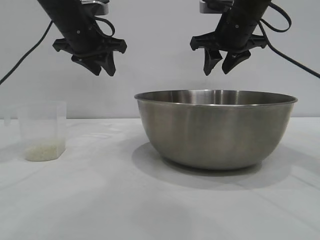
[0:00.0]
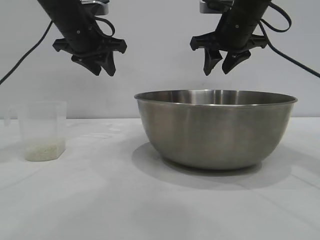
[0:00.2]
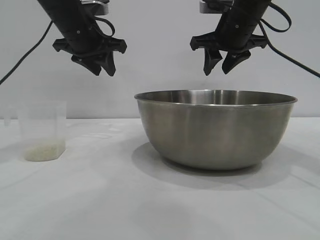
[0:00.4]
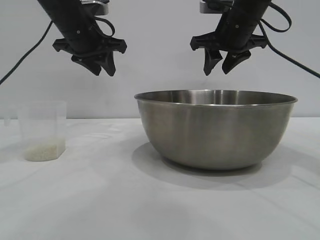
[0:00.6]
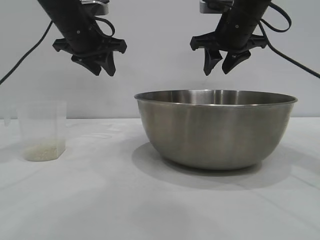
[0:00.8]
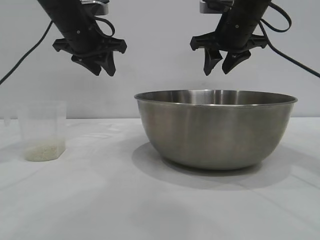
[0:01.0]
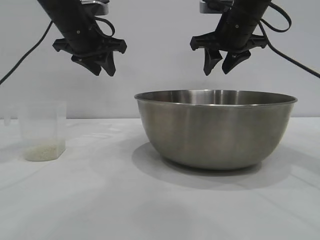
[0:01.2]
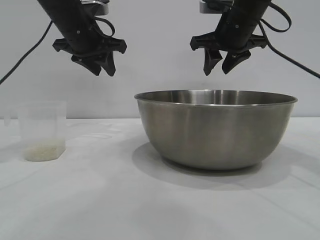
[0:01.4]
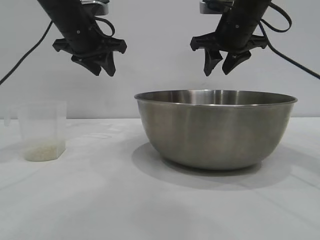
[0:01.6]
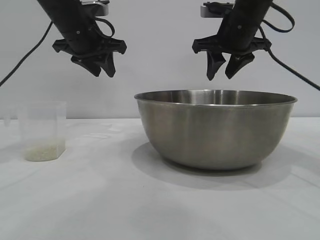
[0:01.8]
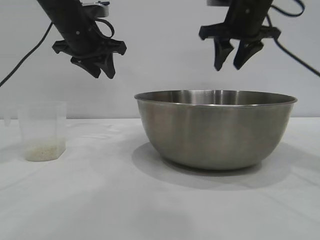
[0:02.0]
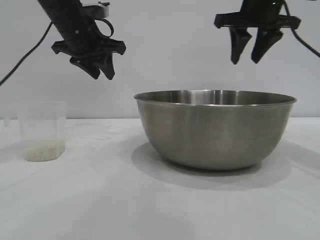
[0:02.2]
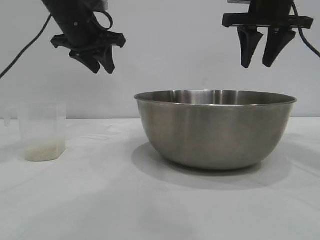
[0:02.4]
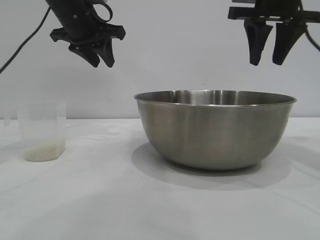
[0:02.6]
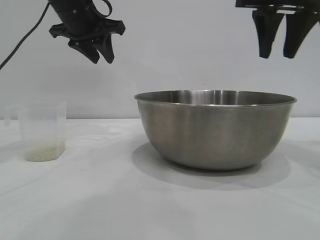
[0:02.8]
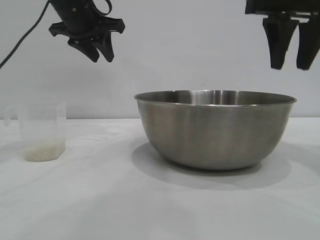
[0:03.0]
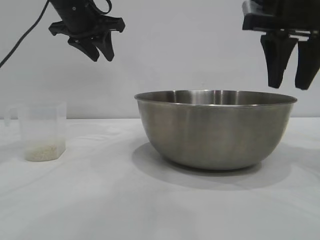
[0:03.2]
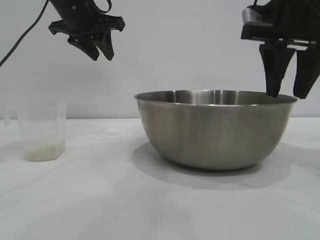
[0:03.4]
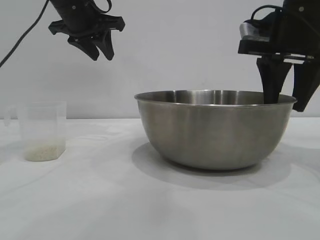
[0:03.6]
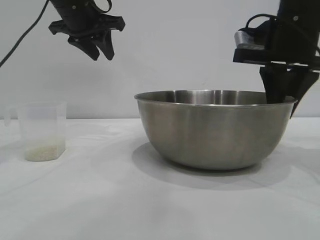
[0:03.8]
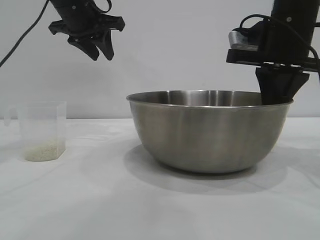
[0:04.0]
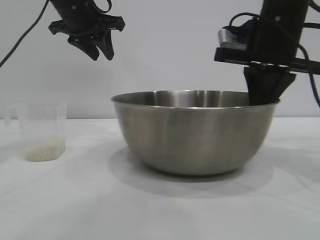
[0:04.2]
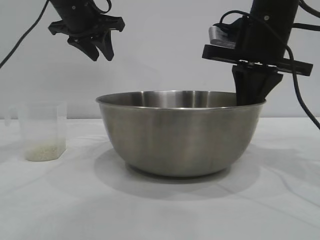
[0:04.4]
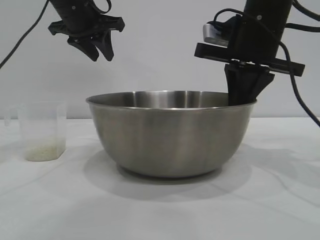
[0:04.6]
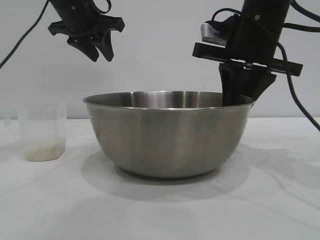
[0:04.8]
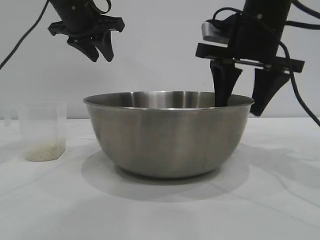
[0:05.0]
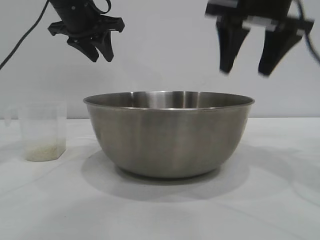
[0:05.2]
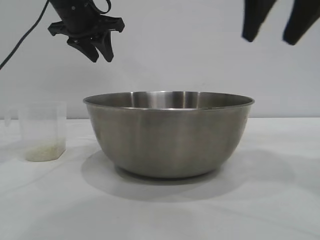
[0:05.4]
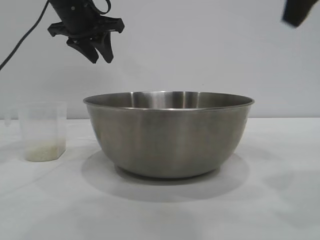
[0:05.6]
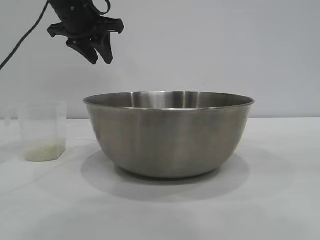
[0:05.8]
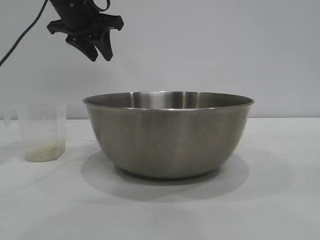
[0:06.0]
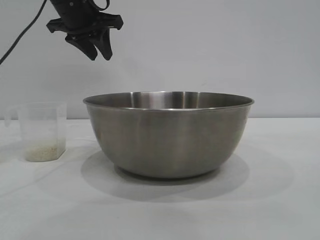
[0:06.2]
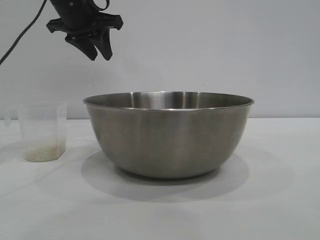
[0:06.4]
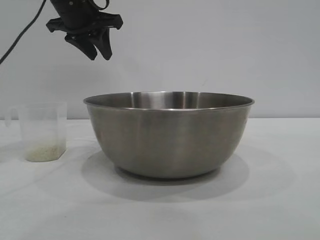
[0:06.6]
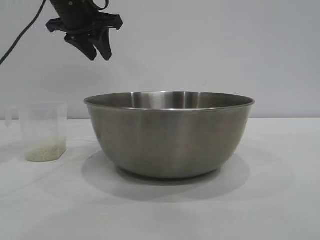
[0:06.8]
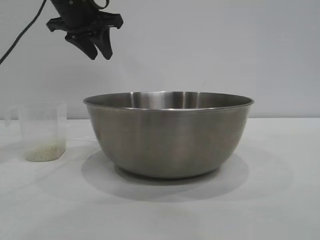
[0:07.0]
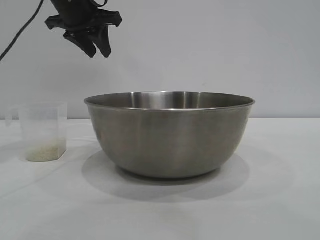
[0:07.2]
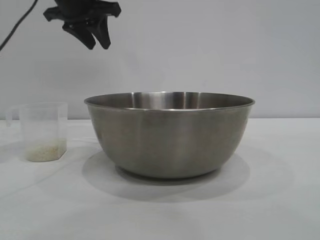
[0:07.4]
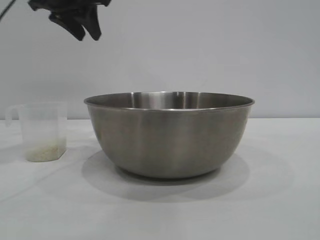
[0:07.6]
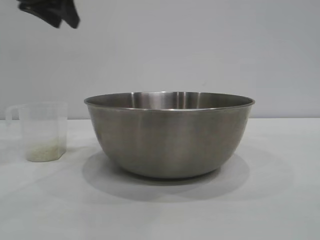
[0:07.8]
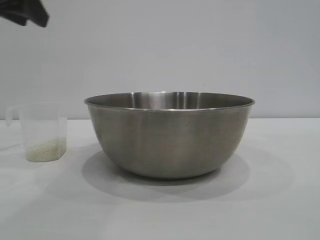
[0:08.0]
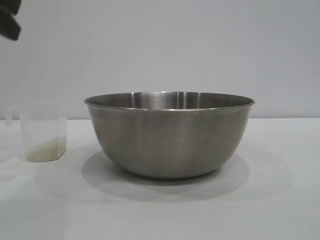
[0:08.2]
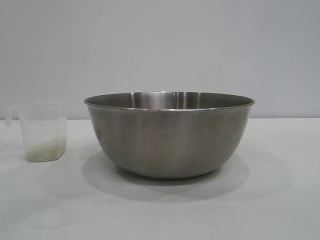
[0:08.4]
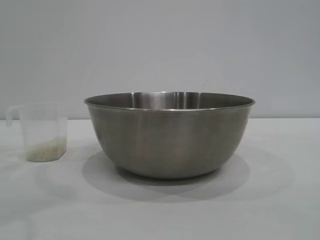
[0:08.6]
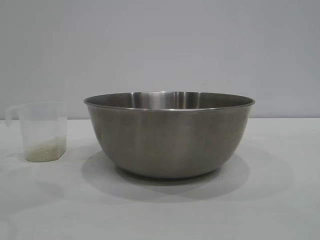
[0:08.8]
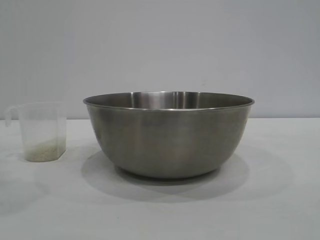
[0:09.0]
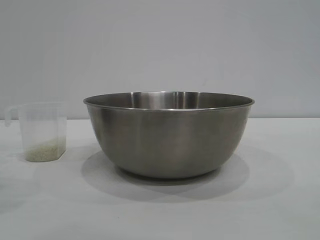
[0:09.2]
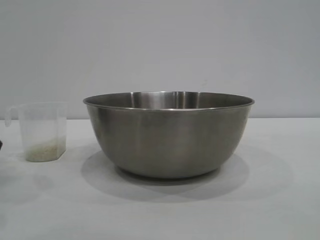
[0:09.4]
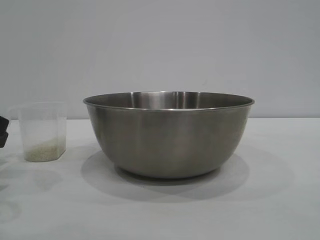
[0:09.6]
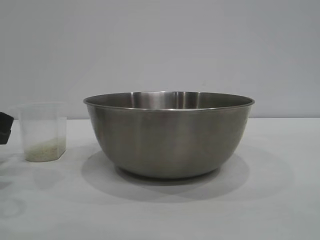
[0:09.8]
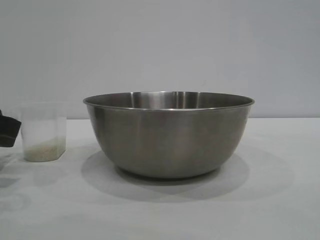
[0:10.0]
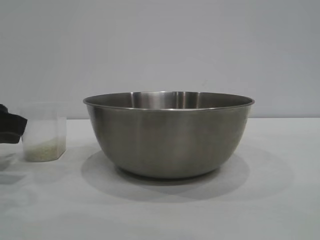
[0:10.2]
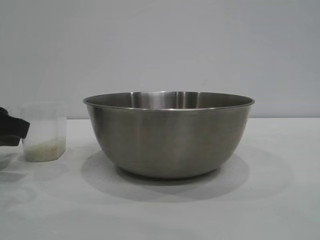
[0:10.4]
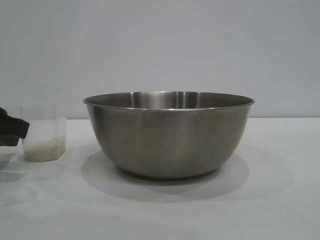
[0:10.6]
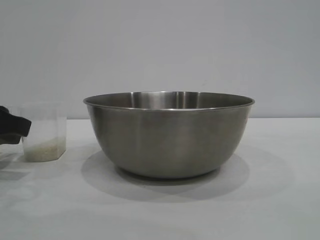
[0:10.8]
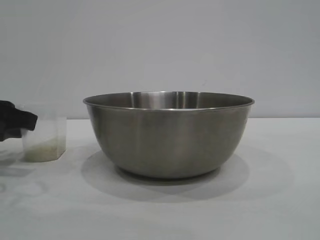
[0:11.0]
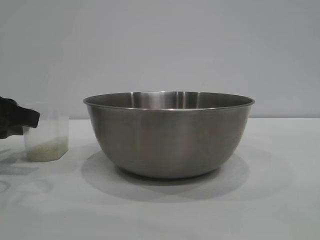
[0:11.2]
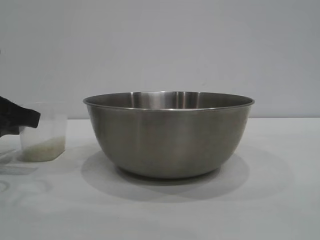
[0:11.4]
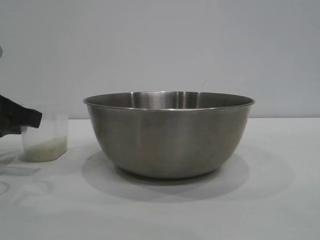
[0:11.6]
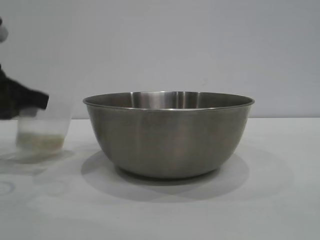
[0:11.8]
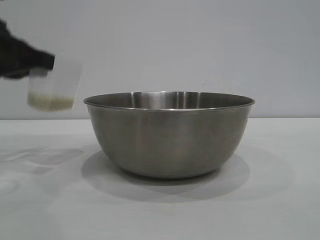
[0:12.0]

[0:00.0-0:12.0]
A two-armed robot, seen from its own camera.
Task of the whole recording: the right gripper grasp the rice container and place it in the center of the table, the left gripper grasp the rice scoop and pour the rice into the rice container.
Step, 0:00.0 to 0:05.0: Move the bowl to the center of view with the right gripper.
Step, 0:05.2 to 0:11.8: Pick up the cup with rice in it with the left gripper.

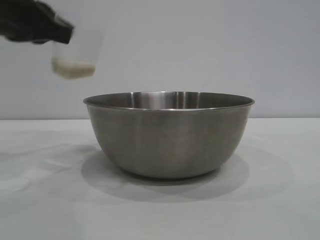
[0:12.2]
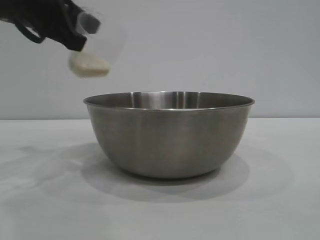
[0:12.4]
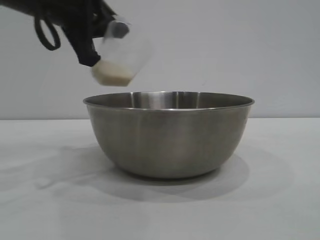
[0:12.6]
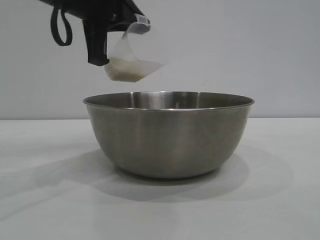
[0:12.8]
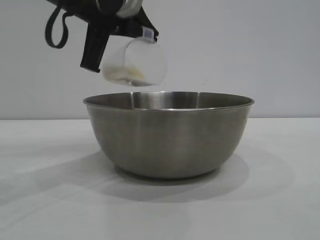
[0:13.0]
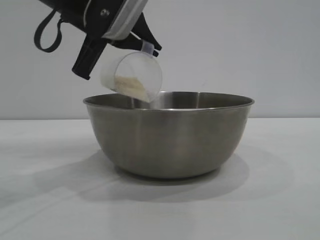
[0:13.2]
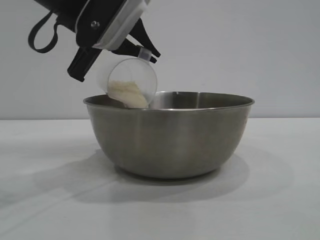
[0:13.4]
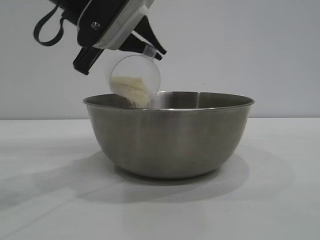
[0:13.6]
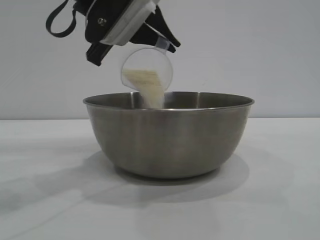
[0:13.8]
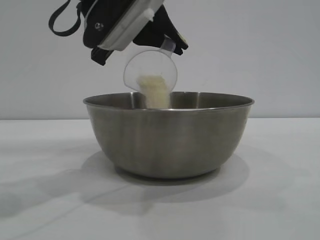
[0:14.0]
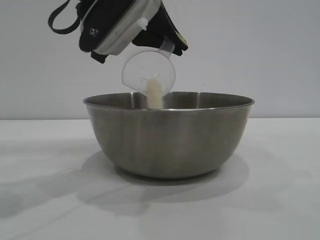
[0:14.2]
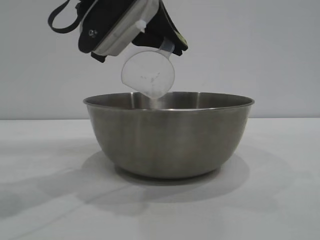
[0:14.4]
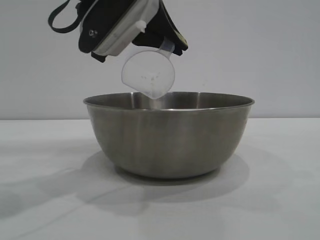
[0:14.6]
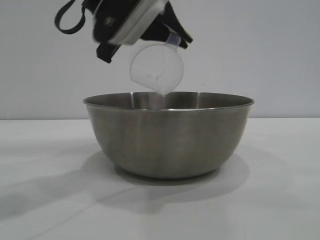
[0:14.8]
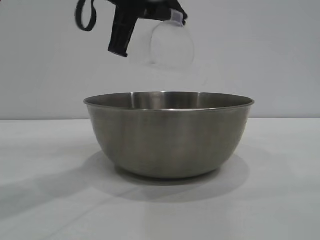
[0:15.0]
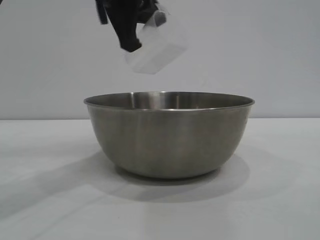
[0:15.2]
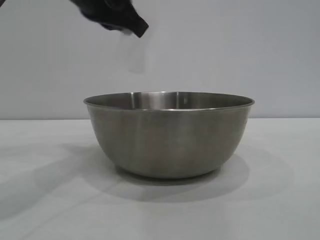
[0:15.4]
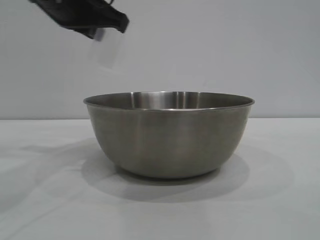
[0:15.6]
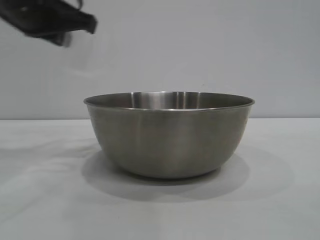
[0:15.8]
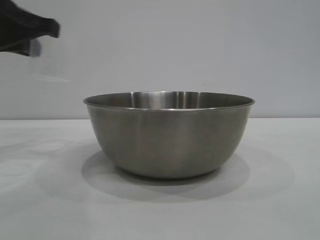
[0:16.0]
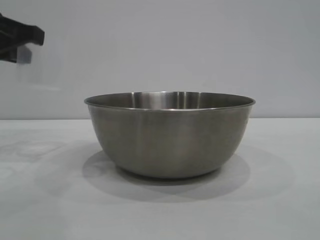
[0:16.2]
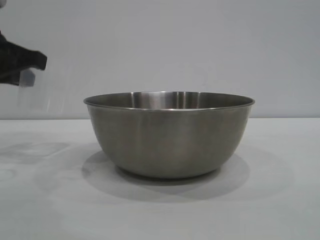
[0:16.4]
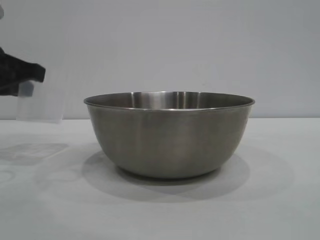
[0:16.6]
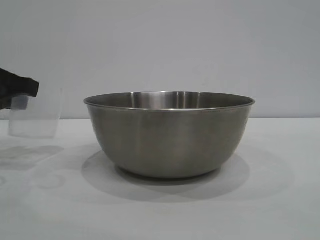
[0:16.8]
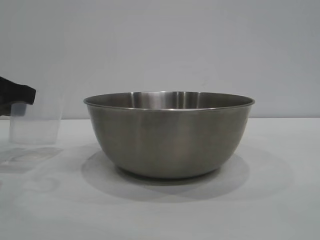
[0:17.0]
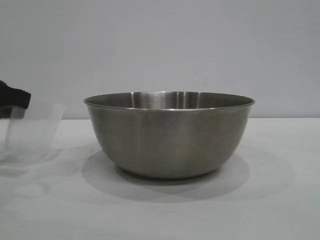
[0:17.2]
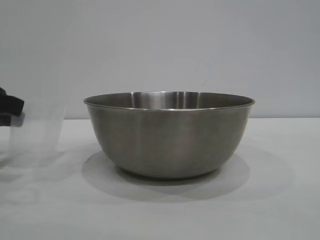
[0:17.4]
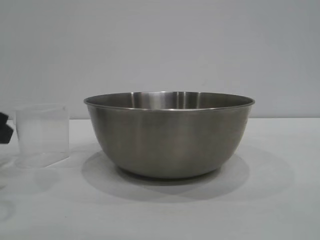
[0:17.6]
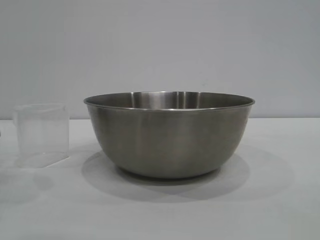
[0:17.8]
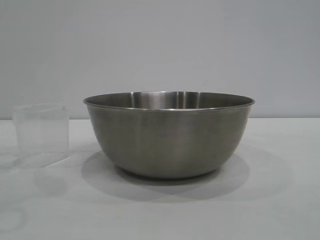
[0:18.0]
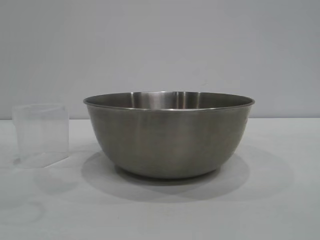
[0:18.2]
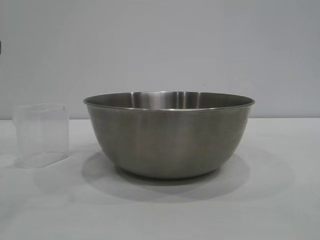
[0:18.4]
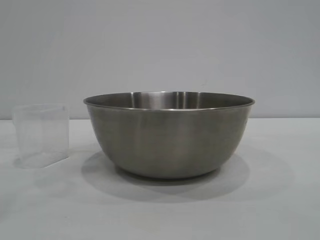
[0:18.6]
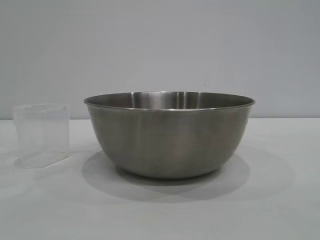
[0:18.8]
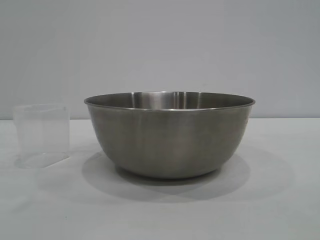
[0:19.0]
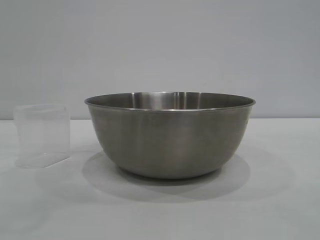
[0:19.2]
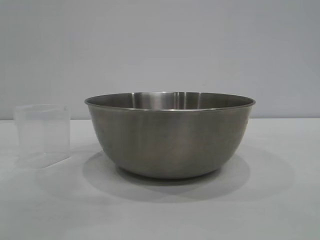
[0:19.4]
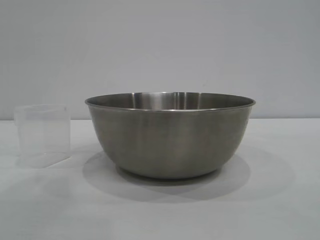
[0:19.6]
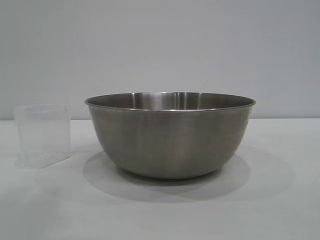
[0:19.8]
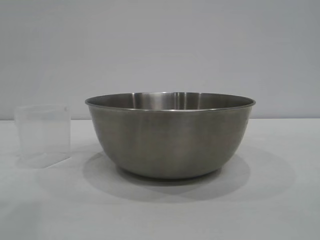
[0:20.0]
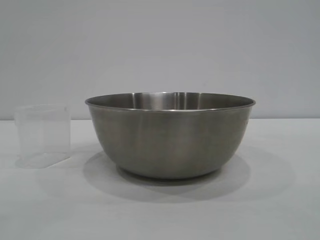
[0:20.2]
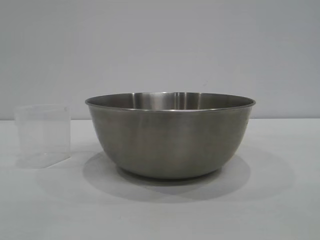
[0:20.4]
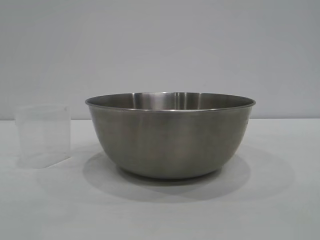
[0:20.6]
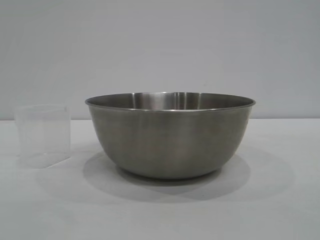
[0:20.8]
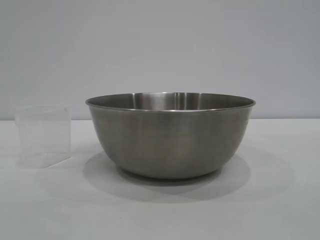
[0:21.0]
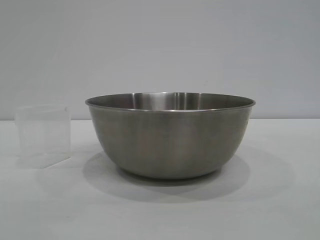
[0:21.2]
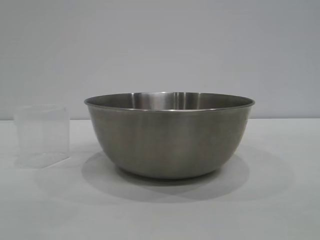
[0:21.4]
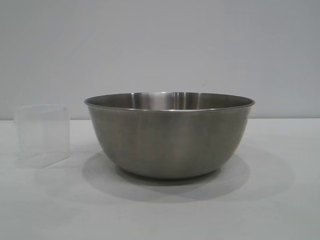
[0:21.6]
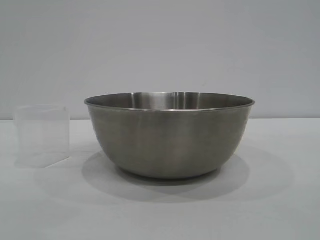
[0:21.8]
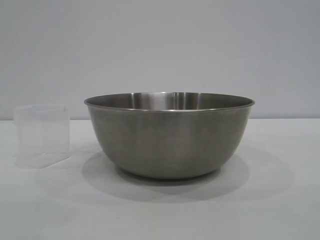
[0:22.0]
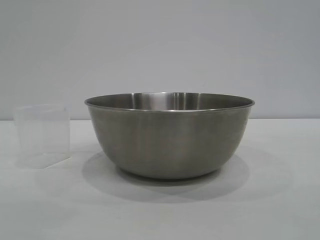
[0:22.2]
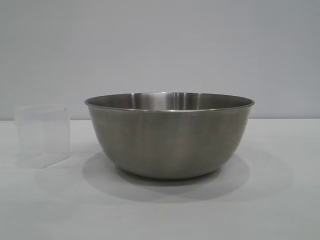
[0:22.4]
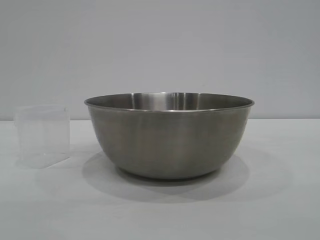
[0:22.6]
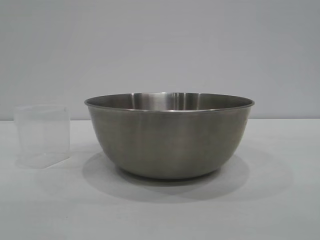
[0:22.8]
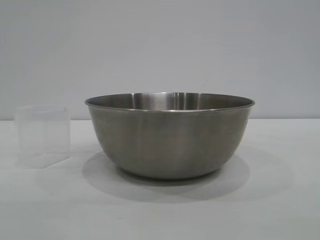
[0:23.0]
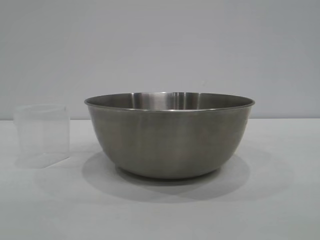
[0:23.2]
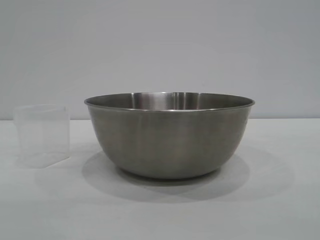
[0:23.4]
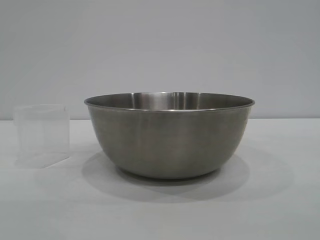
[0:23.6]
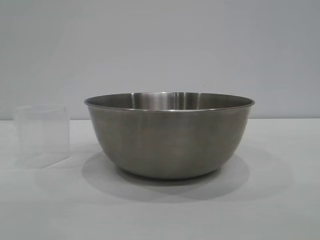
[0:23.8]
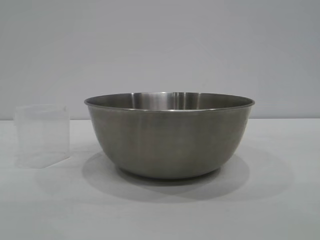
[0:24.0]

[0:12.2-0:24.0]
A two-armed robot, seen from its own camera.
Task of the whole recording: the right gripper grasp the rice container and place it in the center of the table, the left gripper grasp the rice scoop and pour the rice into the rice container.
Step, 0:12.2 to 0:14.6: Pour the rice from the cup into the bowl with the left gripper.
Step, 0:14.8 to 0:17.6: Place the cup on the table with the left gripper.
